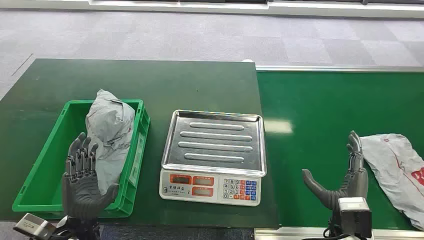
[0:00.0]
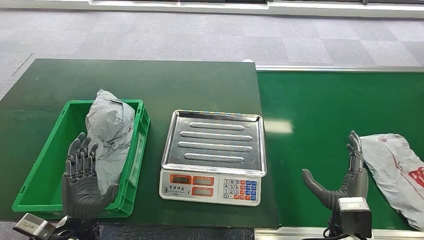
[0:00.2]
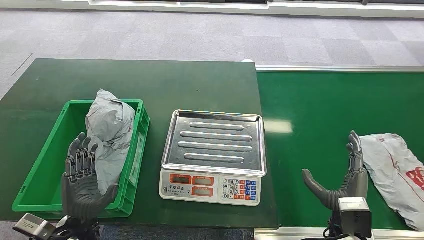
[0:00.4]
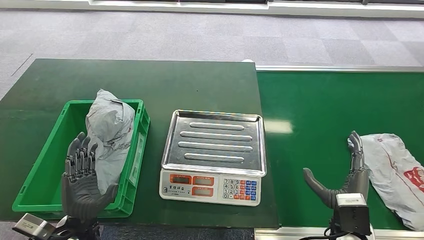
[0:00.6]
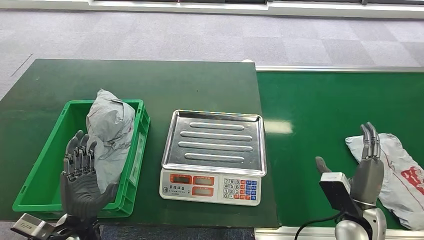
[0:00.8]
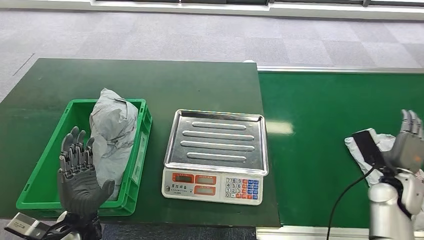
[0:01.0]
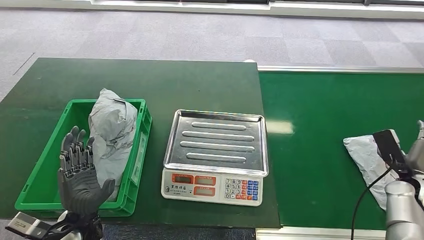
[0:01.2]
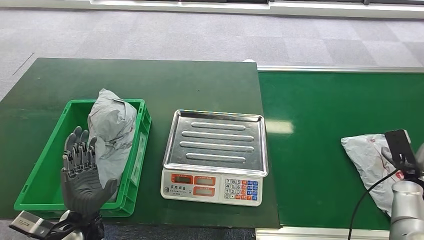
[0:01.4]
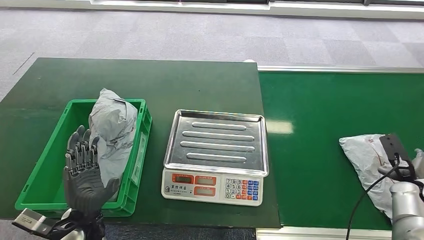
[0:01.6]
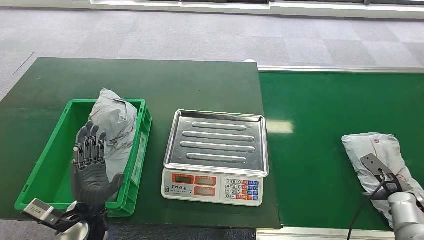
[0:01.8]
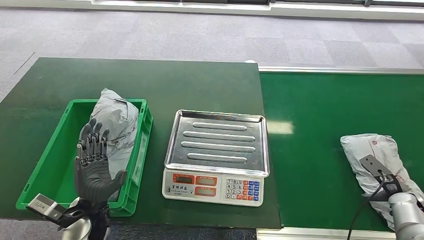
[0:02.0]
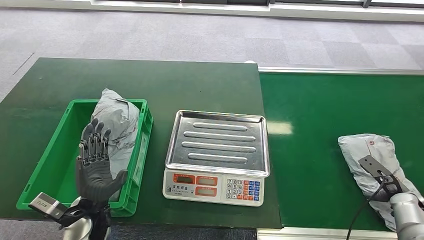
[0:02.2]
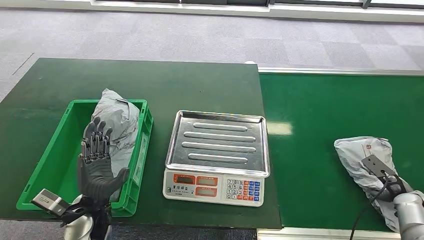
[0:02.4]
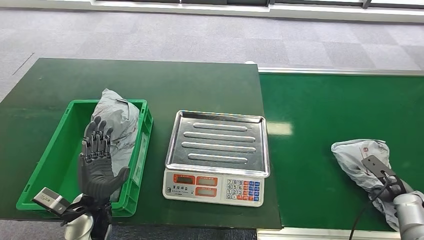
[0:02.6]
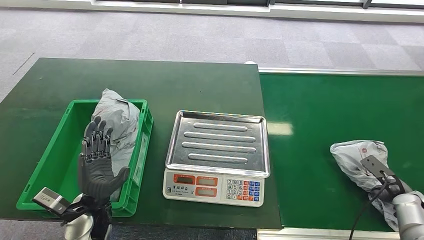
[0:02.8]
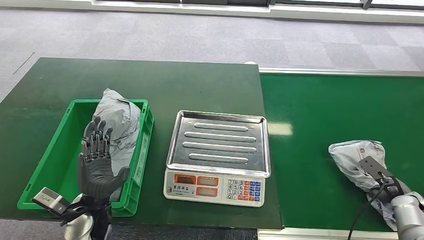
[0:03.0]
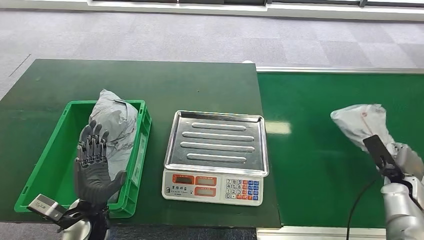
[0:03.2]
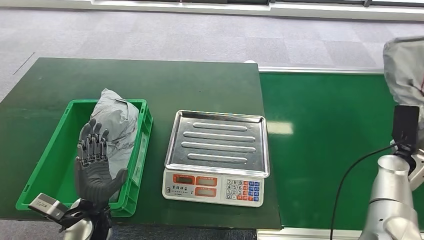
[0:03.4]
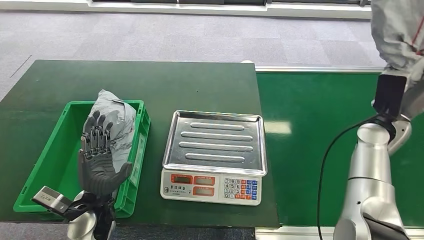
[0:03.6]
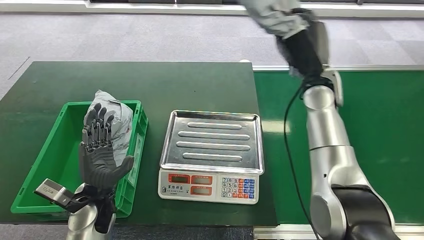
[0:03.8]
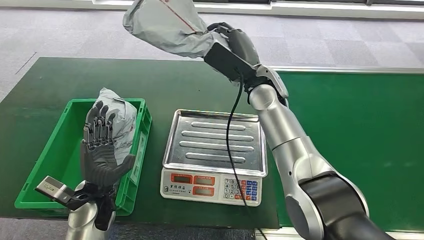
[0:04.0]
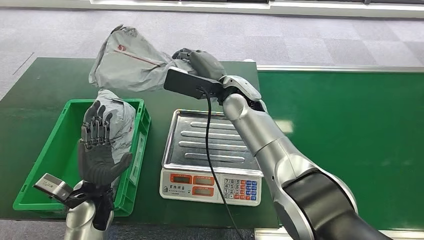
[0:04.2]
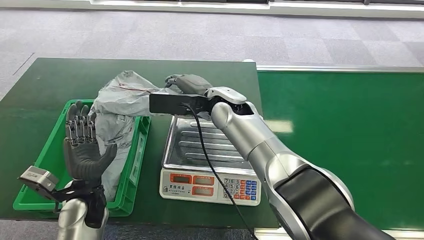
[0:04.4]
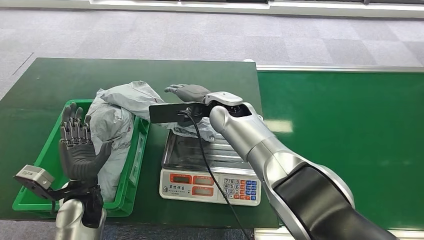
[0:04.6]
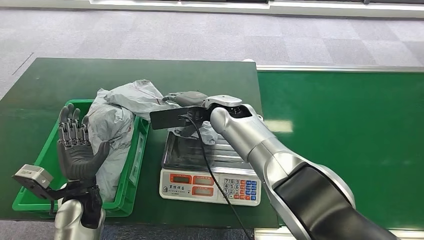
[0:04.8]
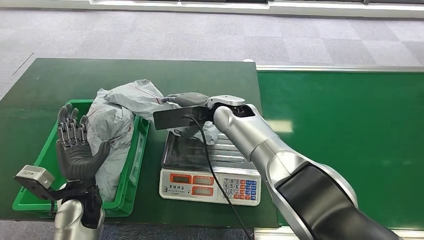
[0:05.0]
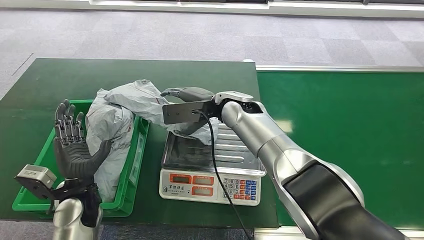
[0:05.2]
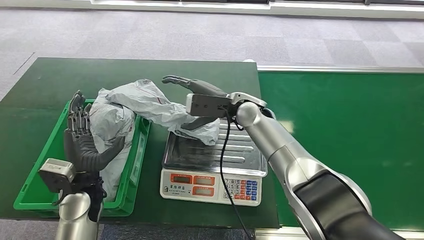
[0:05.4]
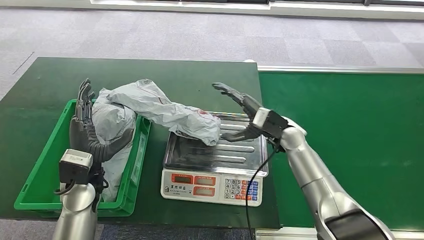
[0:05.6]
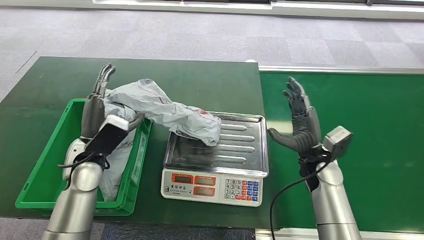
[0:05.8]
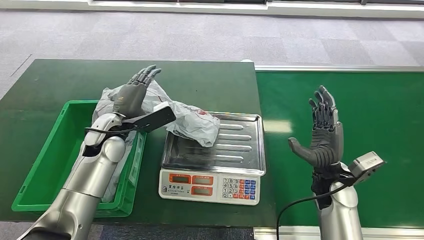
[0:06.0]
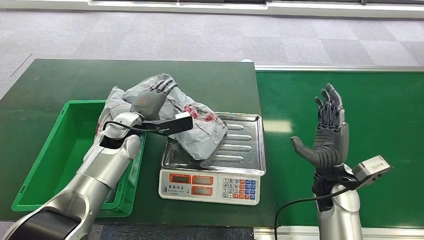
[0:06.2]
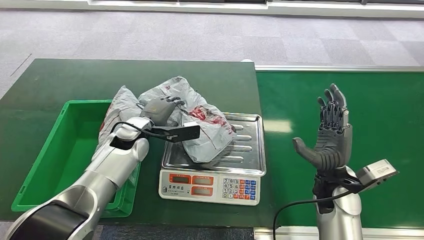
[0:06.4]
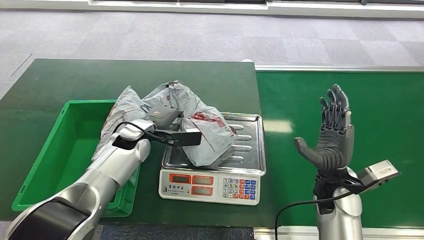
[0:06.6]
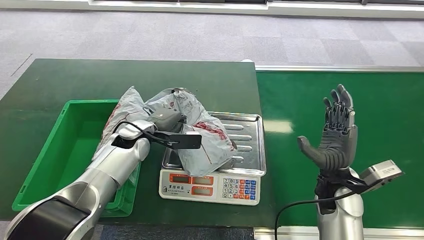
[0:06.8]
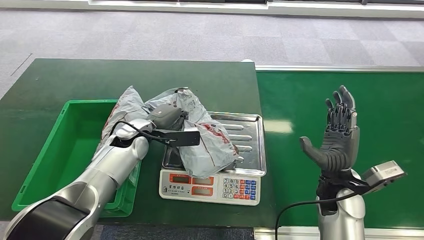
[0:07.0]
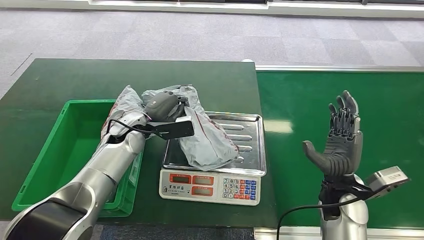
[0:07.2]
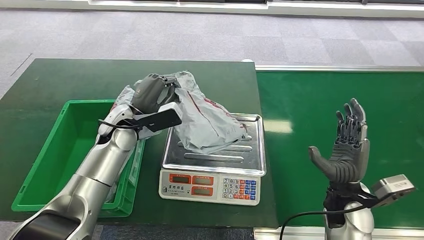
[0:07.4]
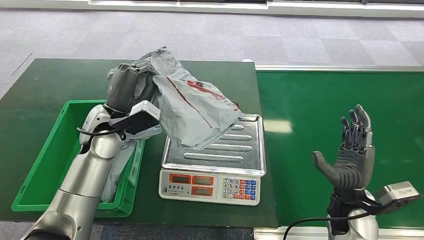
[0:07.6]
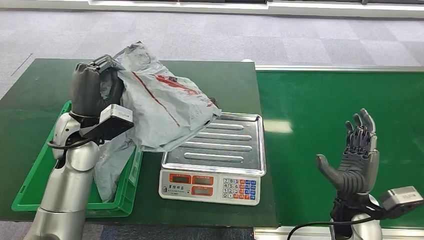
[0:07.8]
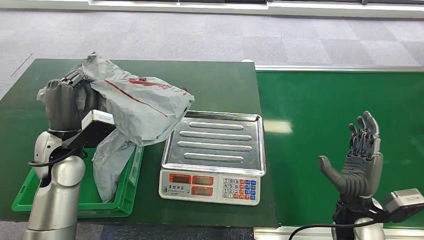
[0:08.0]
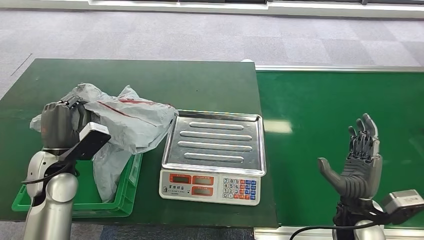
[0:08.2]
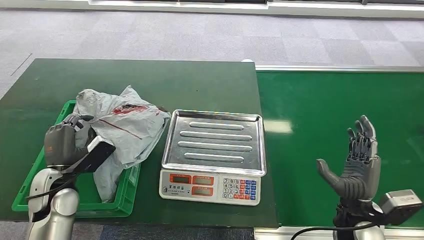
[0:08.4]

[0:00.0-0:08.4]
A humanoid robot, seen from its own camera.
Step, 0:00.0 to 0:03.6: Pick up the package from the conveyor belt.
Step, 0:03.8 to 0:06.2: Place the package onto the inbound machine.
Step, 0:06.4 to 0:07.6: Pick up the package from the inbound machine.
Step, 0:07.8 to 0:08.4: Place the package into the parcel locker.
